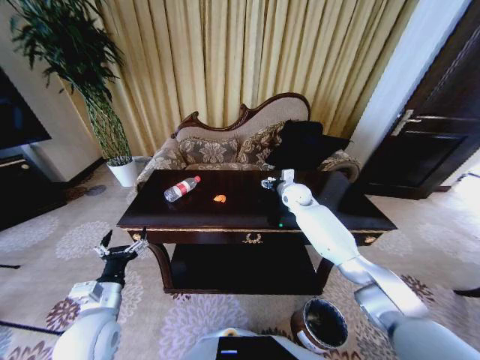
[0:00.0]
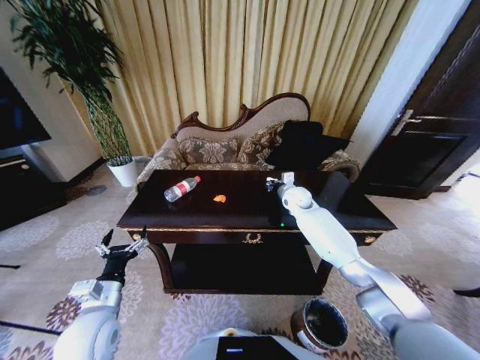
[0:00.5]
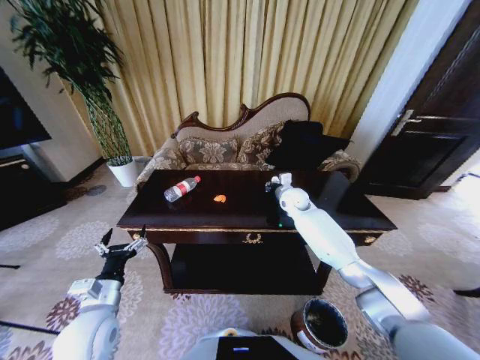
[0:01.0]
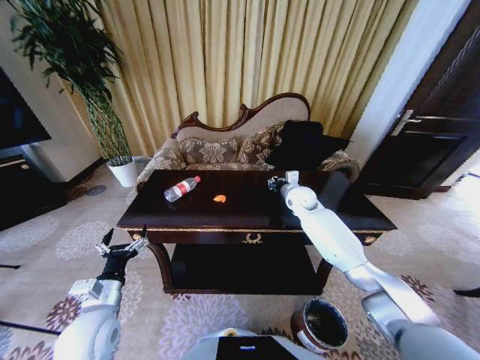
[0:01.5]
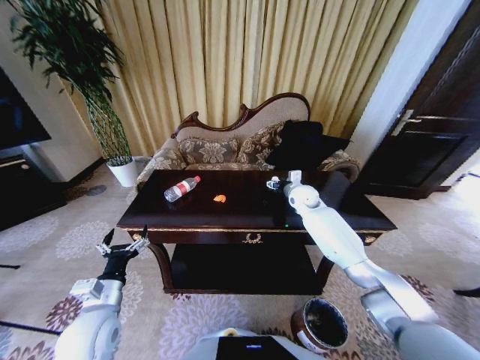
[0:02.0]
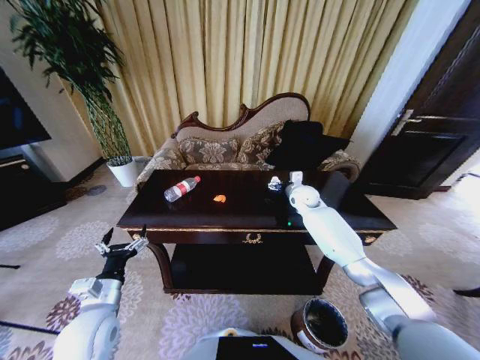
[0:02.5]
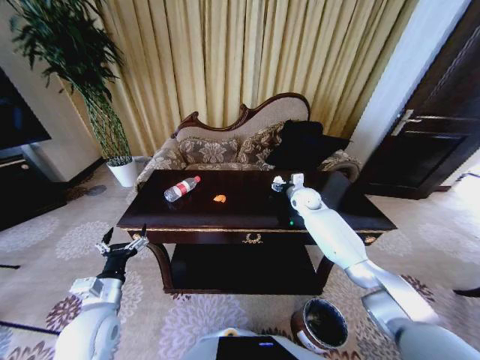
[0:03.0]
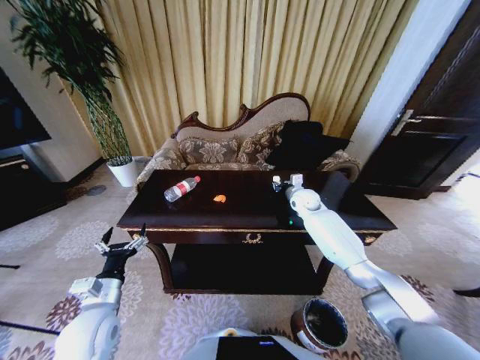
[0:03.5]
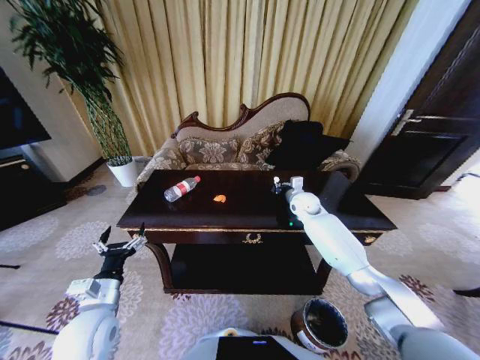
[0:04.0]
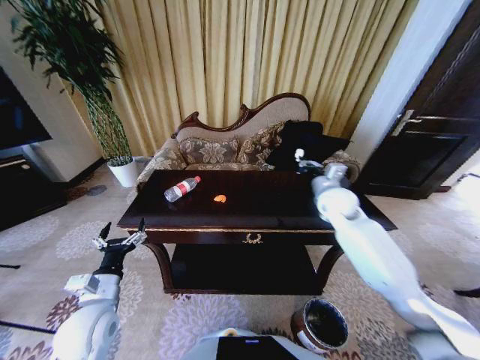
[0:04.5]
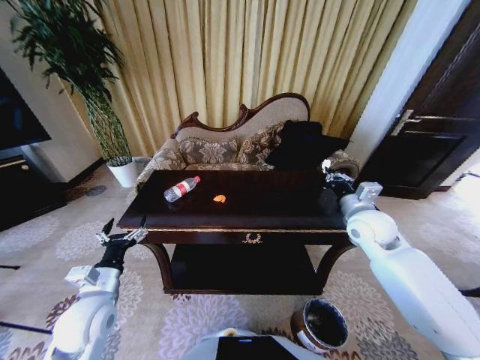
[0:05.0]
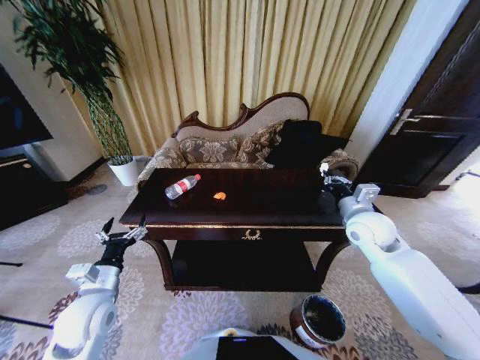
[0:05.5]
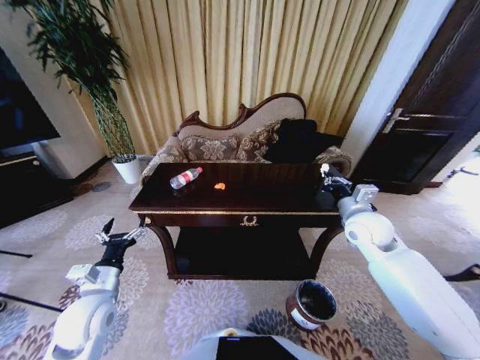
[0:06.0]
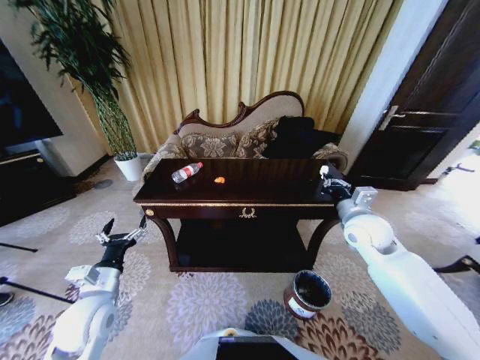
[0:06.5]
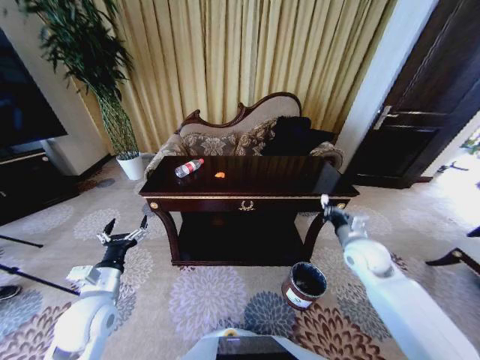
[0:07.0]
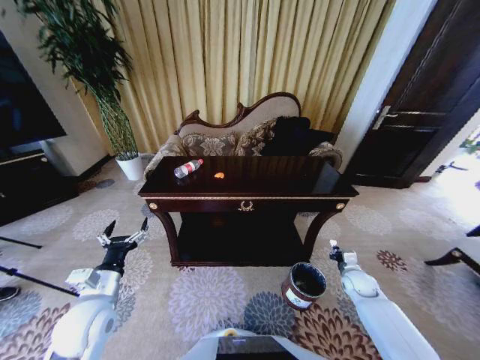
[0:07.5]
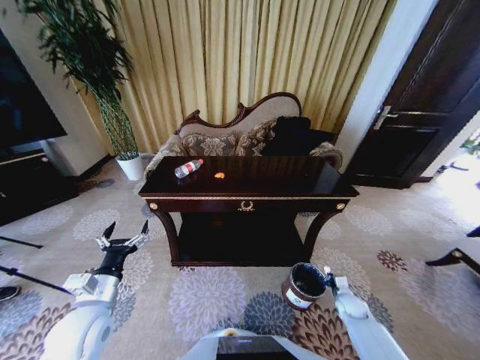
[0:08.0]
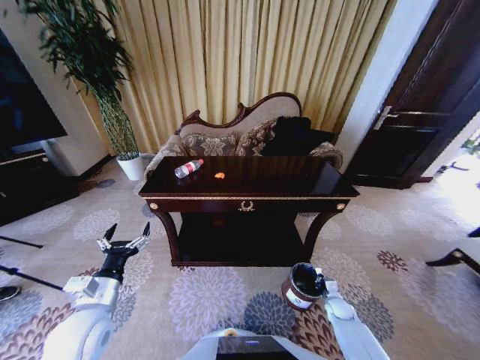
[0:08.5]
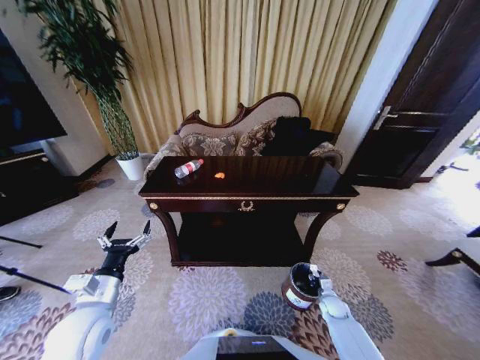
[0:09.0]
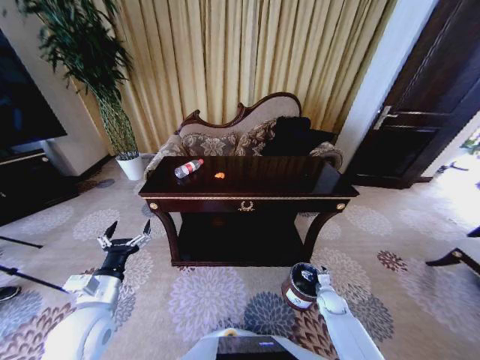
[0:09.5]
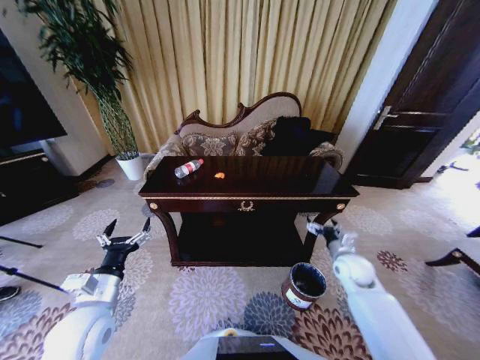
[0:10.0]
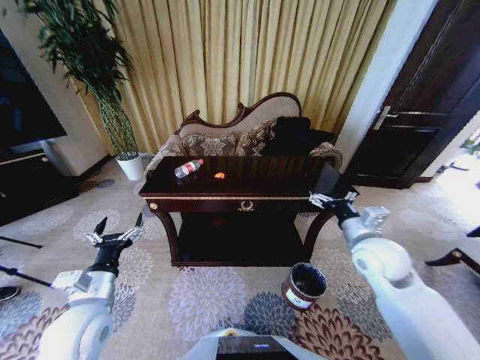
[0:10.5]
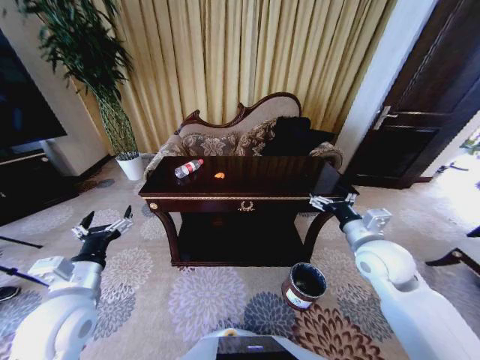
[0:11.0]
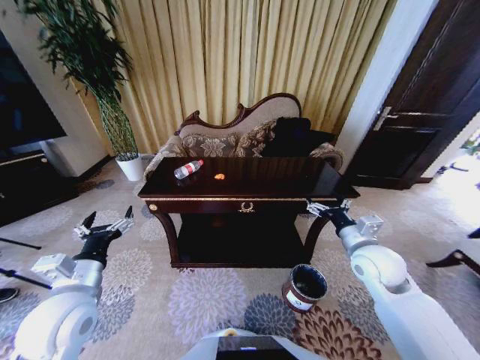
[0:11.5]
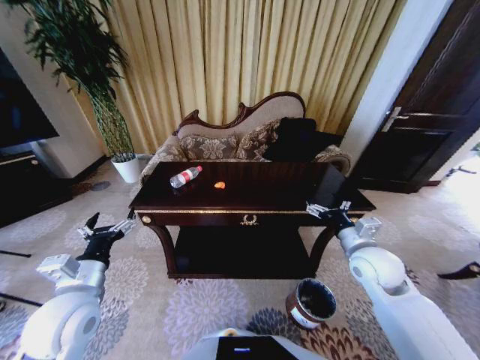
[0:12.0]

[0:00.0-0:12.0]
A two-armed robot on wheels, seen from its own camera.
Task of the whole recording: Move to the front of the table and place the trash on the table into the trash bin.
0:00.0 to 0:02.0: The right gripper closes and opens again.
0:02.0 to 0:04.0: The right gripper closes.
0:04.0 to 0:06.0: The right gripper goes about 20 cm backward, upward and to the right.
0:06.0 to 0:08.0: The right gripper heads downward, covering about 35 cm.
0:08.0 to 0:10.0: The right gripper shifts about 20 cm upward, and opens.
0:10.0 to 0:12.0: The right gripper shifts some 10 cm upward.

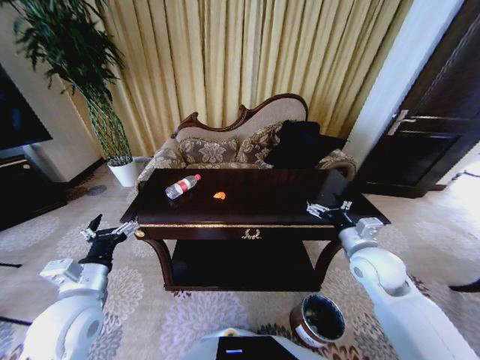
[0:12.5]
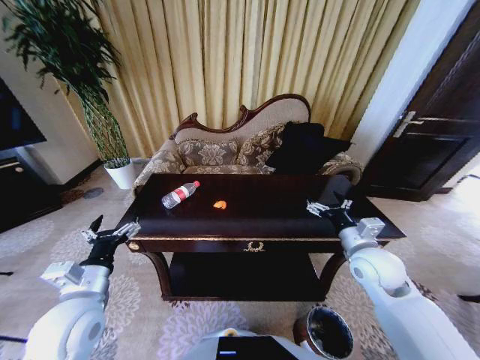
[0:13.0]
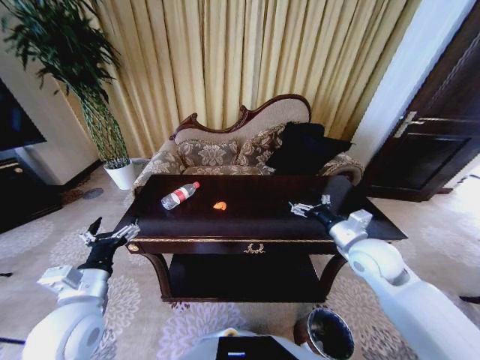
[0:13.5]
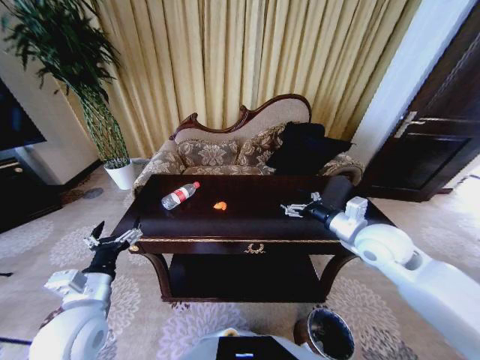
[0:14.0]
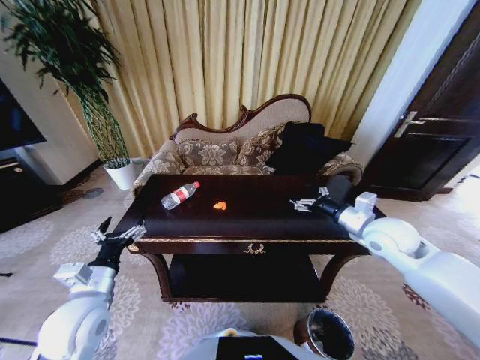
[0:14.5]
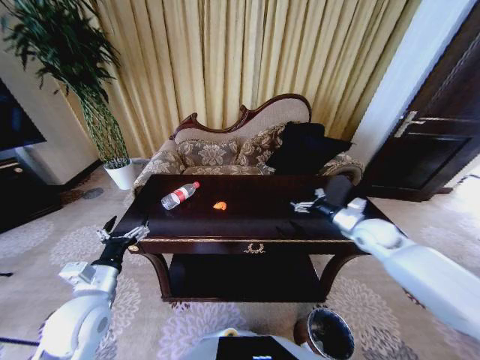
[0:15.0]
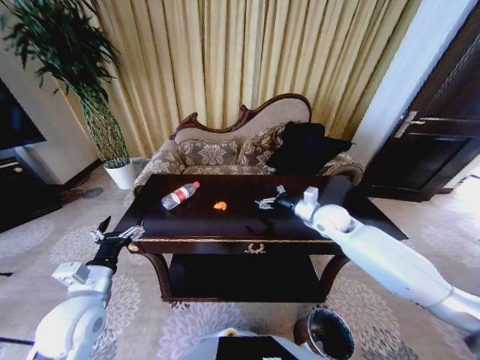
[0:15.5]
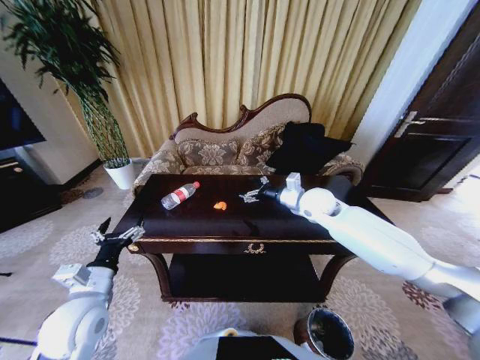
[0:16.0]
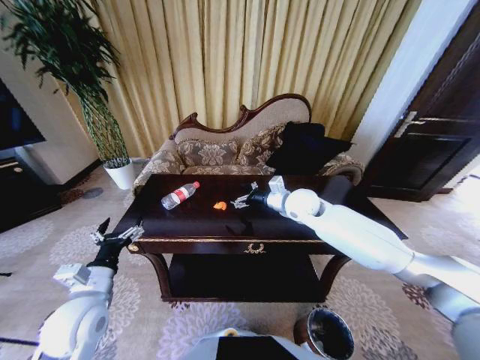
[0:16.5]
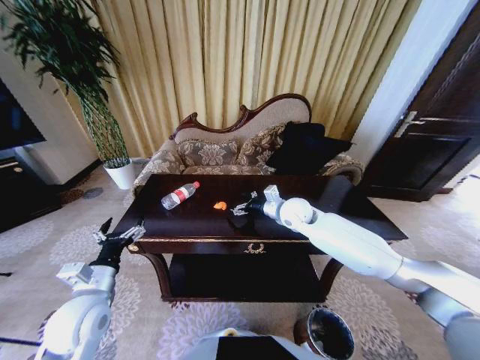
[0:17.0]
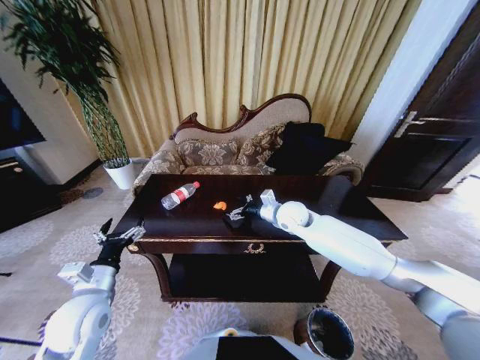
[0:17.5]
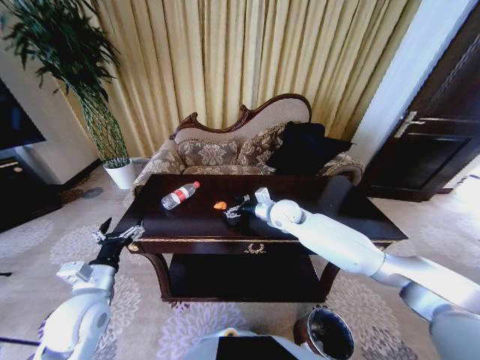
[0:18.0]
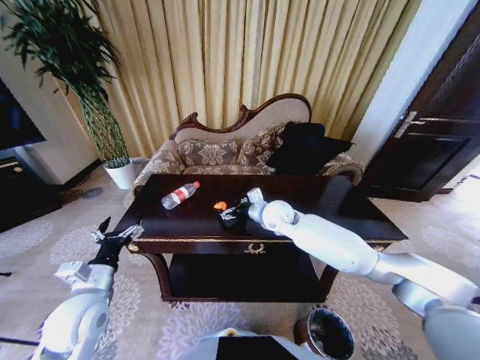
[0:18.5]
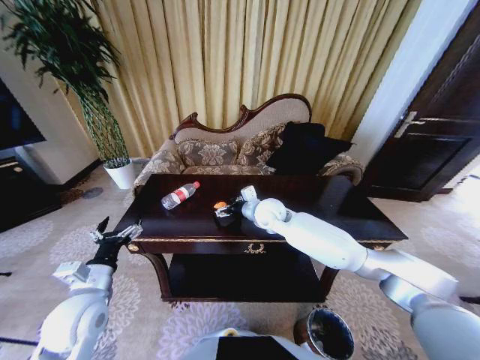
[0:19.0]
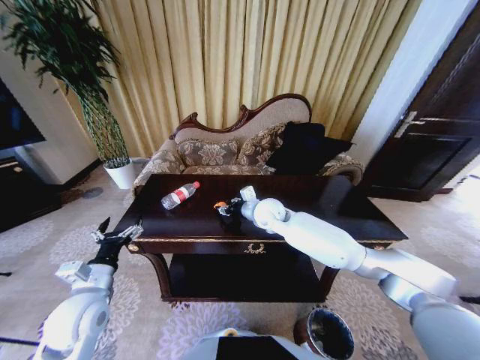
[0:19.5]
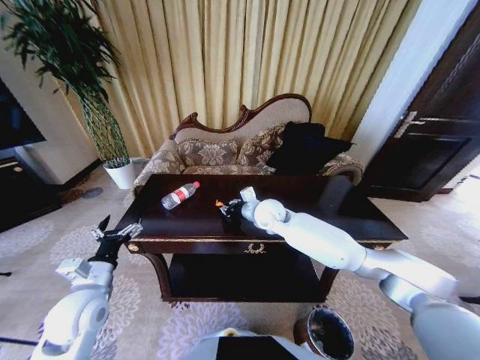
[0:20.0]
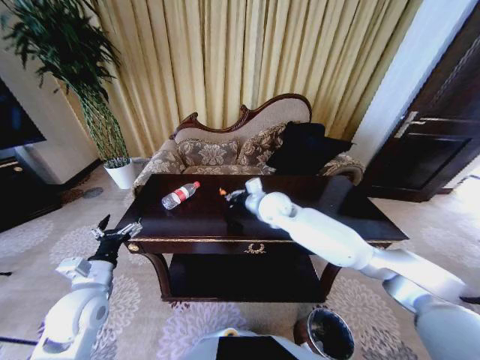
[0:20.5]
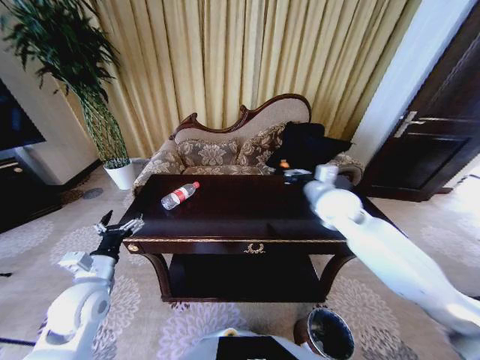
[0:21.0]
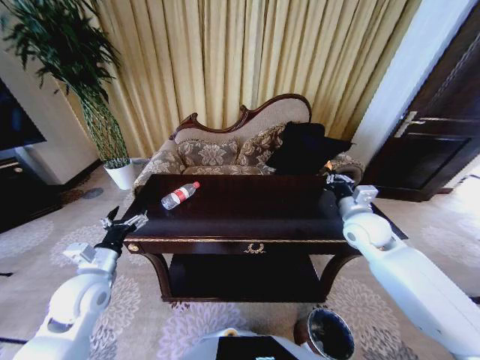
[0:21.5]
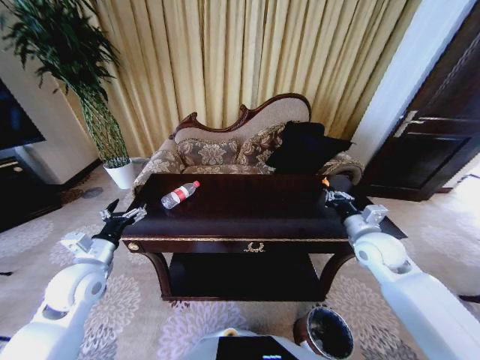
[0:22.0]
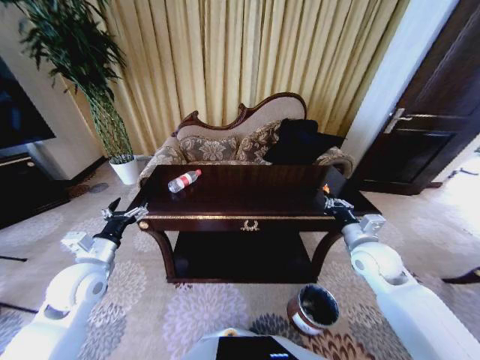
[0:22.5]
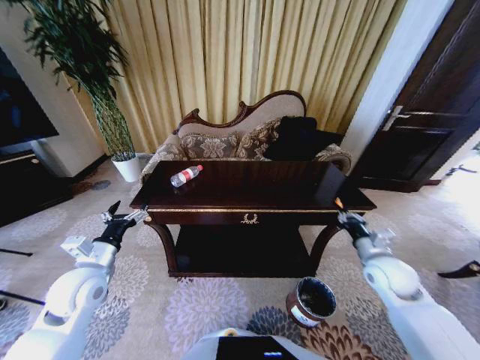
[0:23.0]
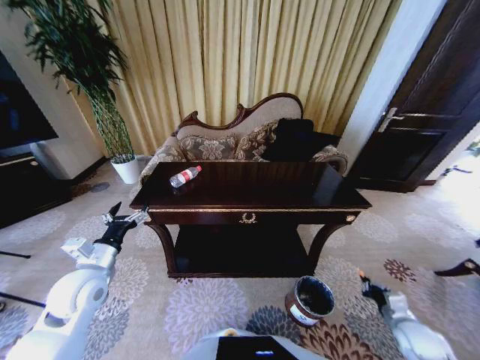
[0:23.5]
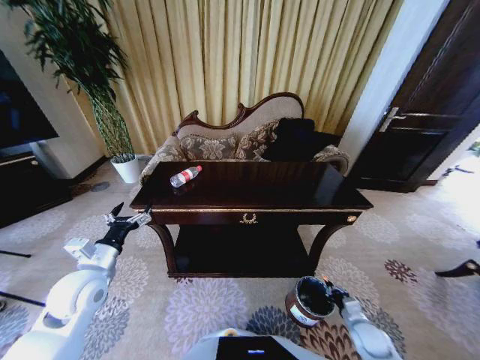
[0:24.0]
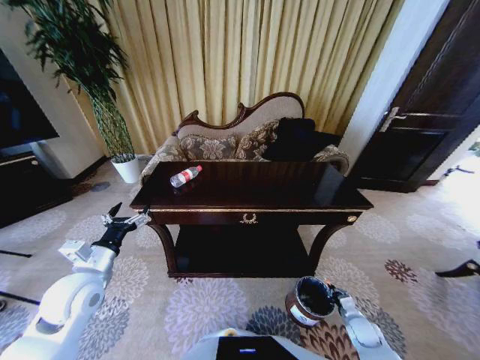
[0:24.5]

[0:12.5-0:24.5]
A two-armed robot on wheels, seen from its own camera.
Task of the whole recording: Move to the front of the table and place the trash on the table into the trash bin.
0:12.5 to 0:14.5: The right gripper is displaced forward by approximately 5 cm.
0:14.5 to 0:16.5: The right gripper heads to the left and forward, covering about 20 cm.
0:16.5 to 0:18.5: The right gripper goes about 5 cm to the left.
0:18.5 to 0:20.5: The right gripper closes up.
0:20.5 to 0:22.5: The right gripper goes some 25 cm to the right and backward, while the left gripper changes place by approximately 5 cm.
0:22.5 to 0:24.5: The right gripper is displaced downward and backward by roughly 35 cm.

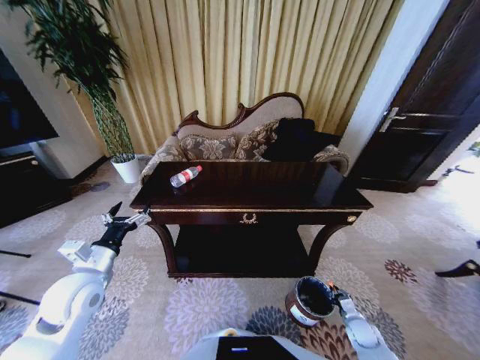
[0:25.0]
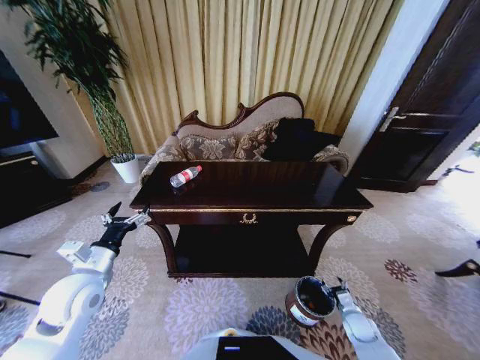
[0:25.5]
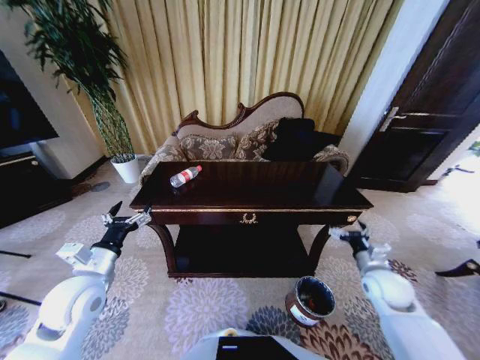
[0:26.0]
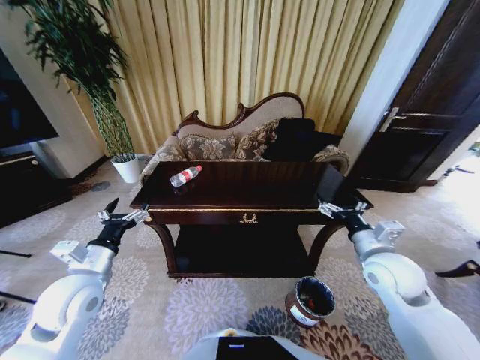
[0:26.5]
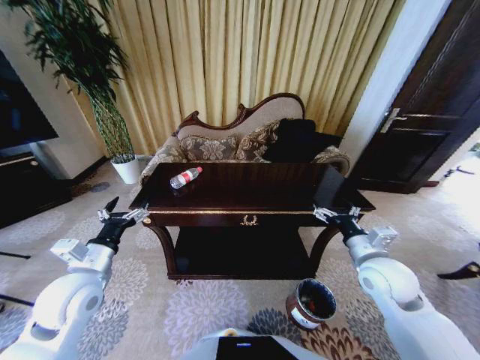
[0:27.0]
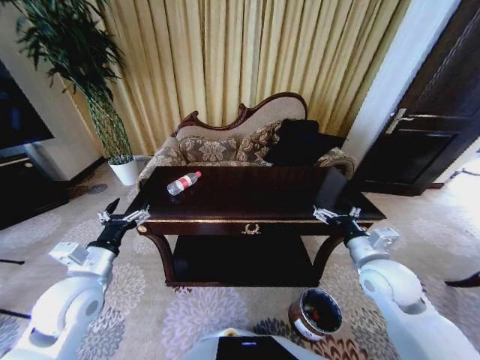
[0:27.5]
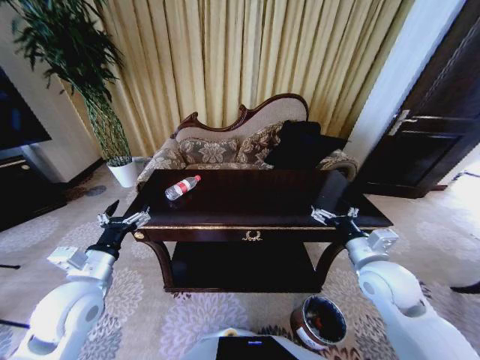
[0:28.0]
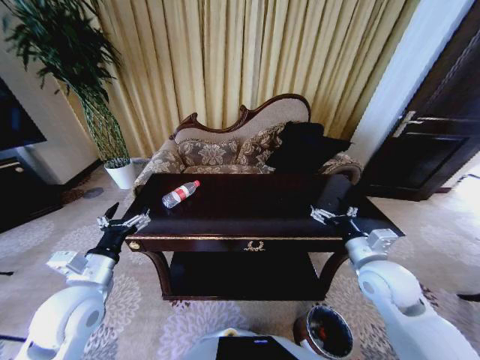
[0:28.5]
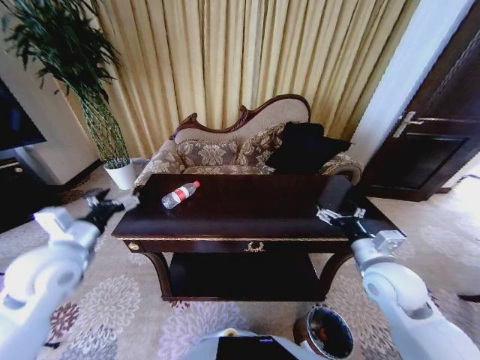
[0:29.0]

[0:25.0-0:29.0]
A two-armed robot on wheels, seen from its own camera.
Task of the whole recording: Move to the front of the table and place the trash on the table into the trash bin.
0:25.0 to 0:27.0: The right gripper goes about 35 cm upward, and opens its fingers.
0:27.0 to 0:29.0: The left gripper heads upward, covering approximately 5 cm.
